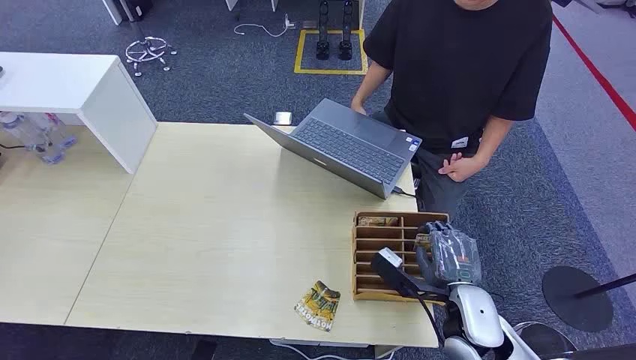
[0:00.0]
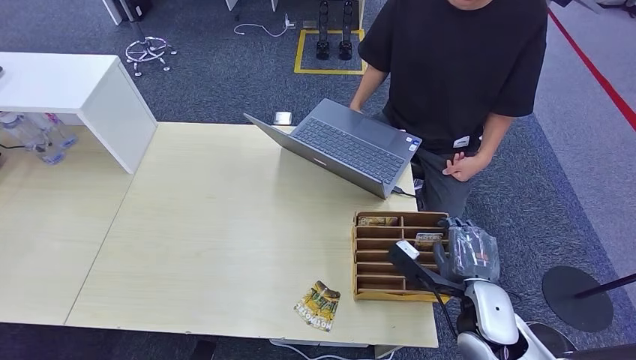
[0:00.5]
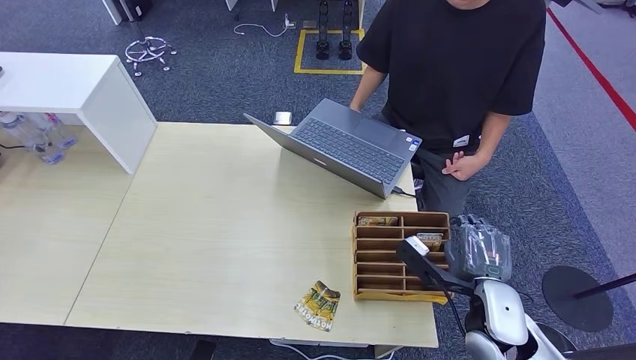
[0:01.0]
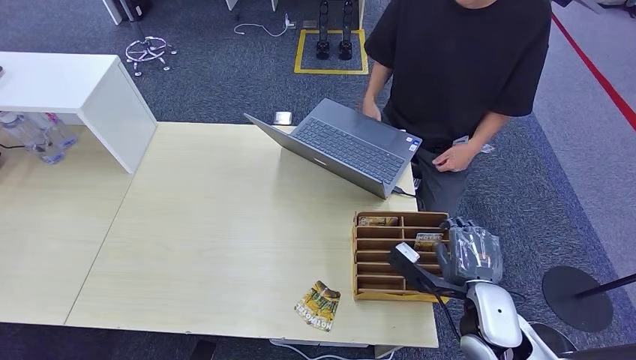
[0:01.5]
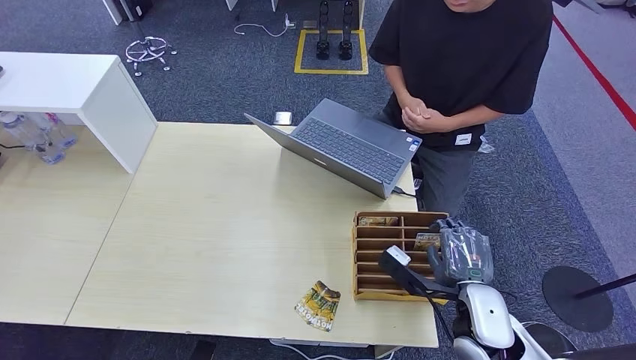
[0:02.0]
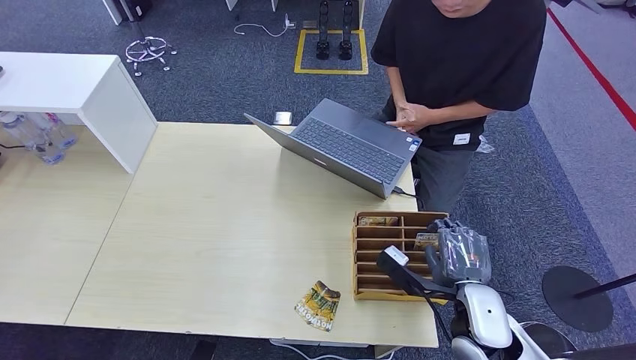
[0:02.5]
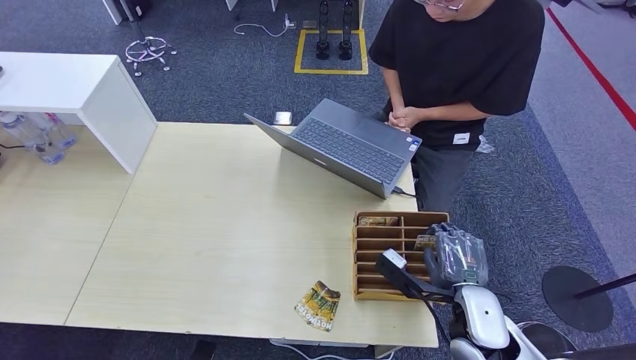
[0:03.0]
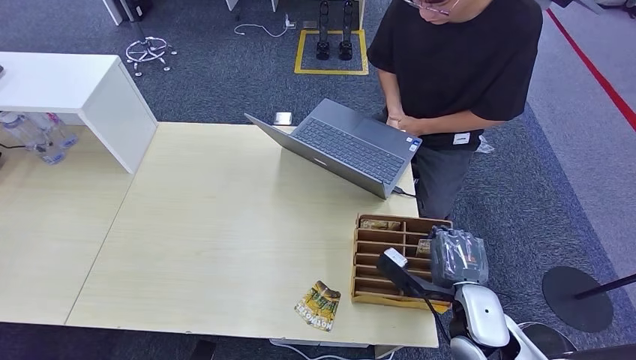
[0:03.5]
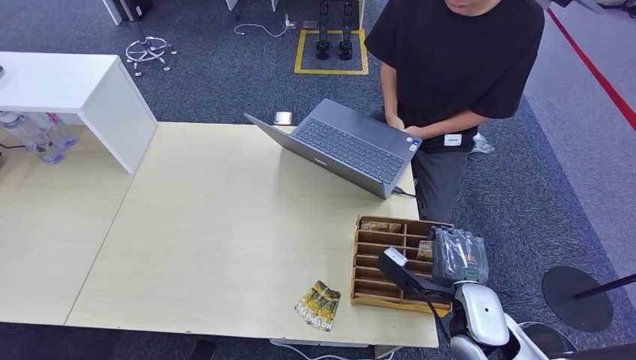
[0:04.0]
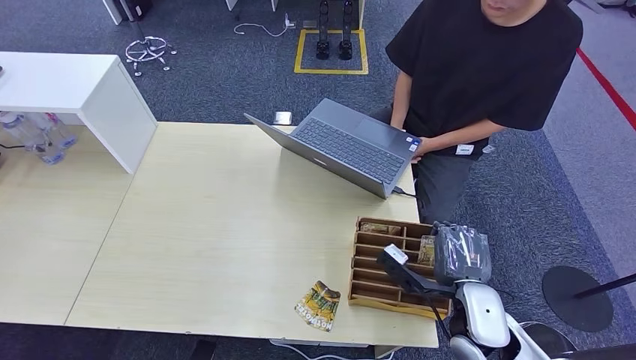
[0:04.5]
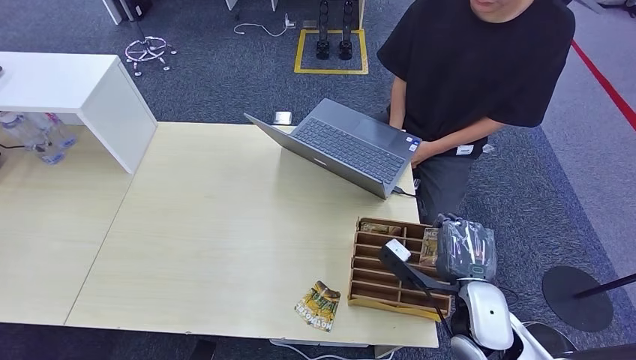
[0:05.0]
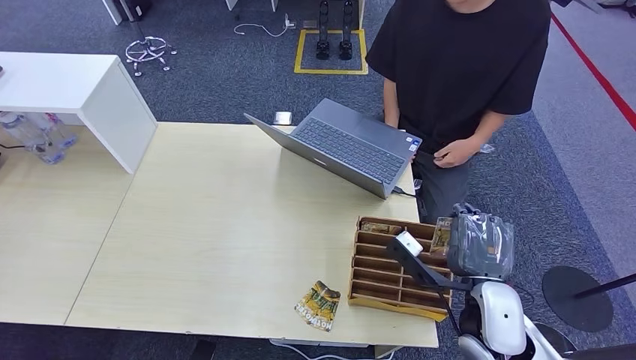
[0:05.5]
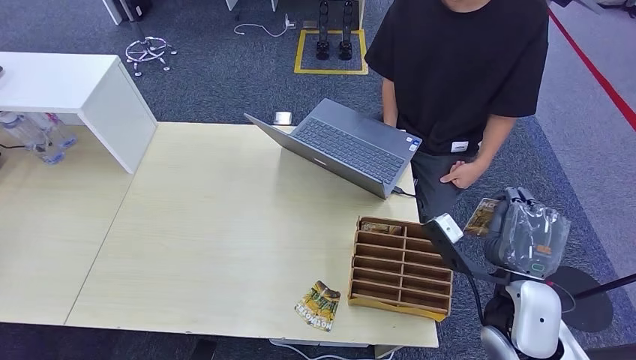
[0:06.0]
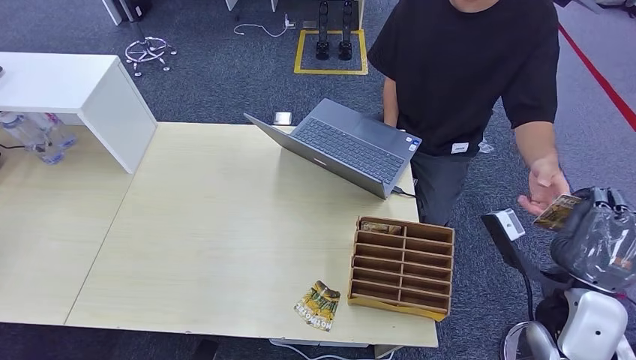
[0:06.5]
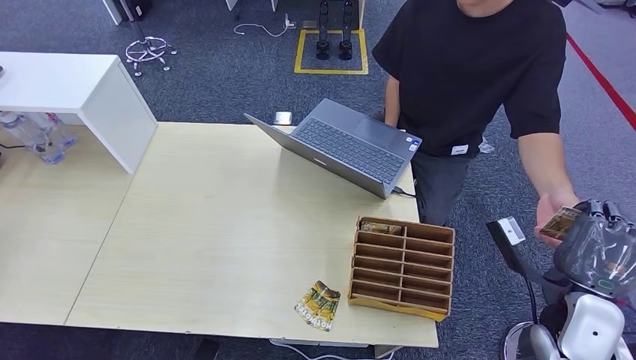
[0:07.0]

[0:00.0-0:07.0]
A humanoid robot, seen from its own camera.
Step, 0:00.0 to 0:06.0: Pick up the room card from the card holder.
Step, 0:06.5 to 0:07.0: Hand the room card to the target.
0:02.0 to 0:03.5: Both hands stay put.
0:03.5 to 0:05.0: There are only small adjustments of the hands.
0:05.0 to 0:07.0: The right hand is displaced to the right by approximately 10 cm.
